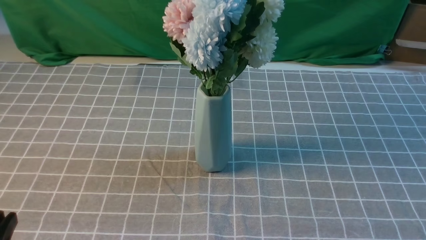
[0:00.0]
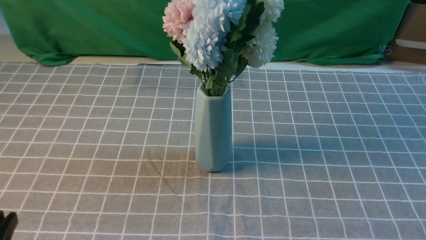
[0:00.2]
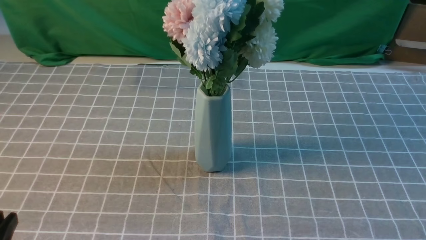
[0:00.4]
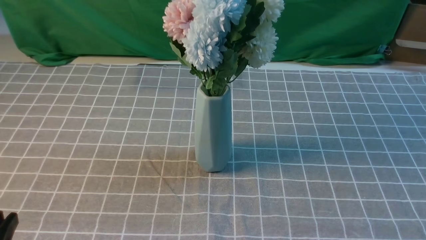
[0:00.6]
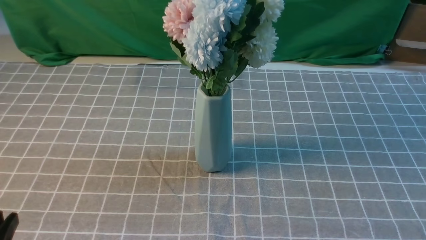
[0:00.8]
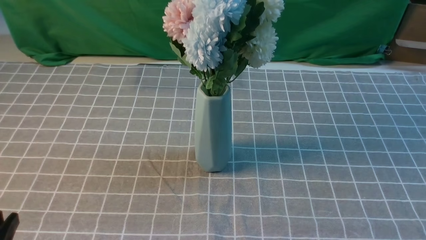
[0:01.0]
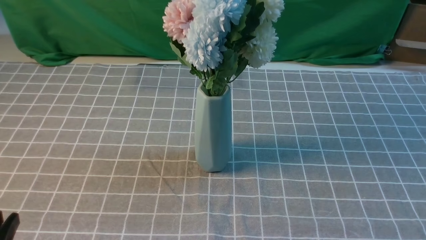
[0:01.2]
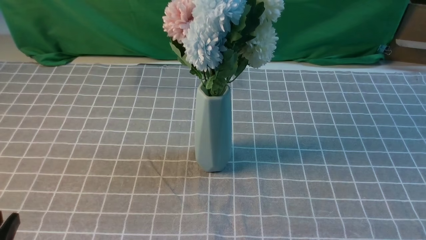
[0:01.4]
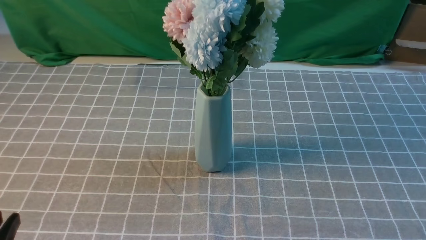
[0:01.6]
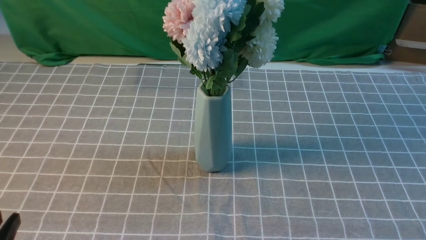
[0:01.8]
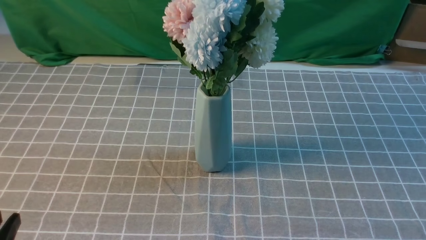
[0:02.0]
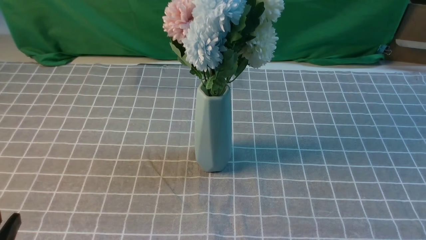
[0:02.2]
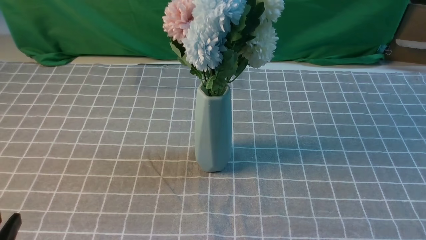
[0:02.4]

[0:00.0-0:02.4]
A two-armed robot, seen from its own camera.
Task of the whole recording: insert the flowers into the vase on the table with the grey tablecloth.
0:01.2 to 0:02.4: Both grippers stay about where they are.
